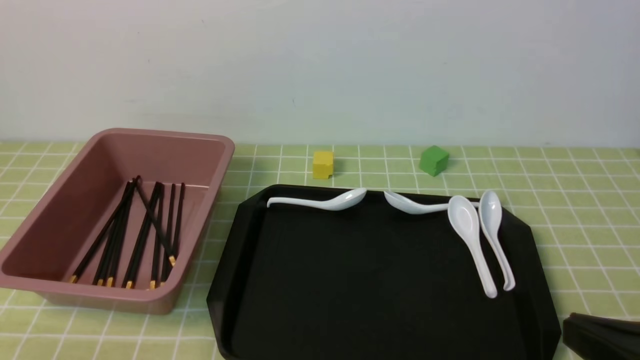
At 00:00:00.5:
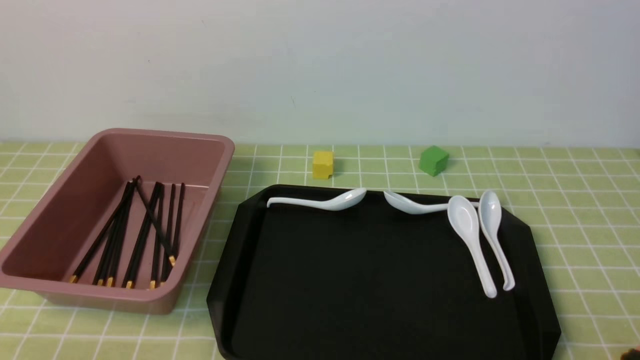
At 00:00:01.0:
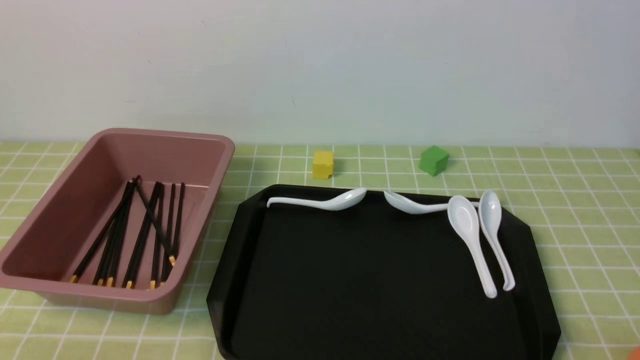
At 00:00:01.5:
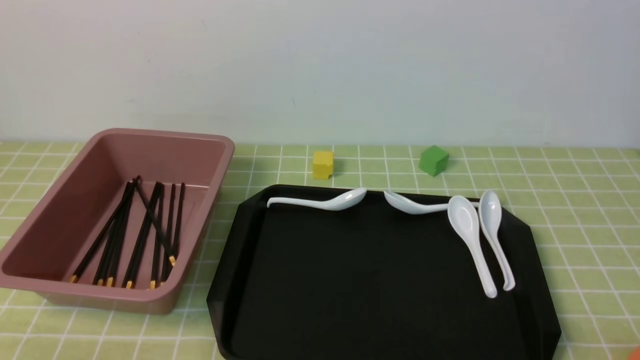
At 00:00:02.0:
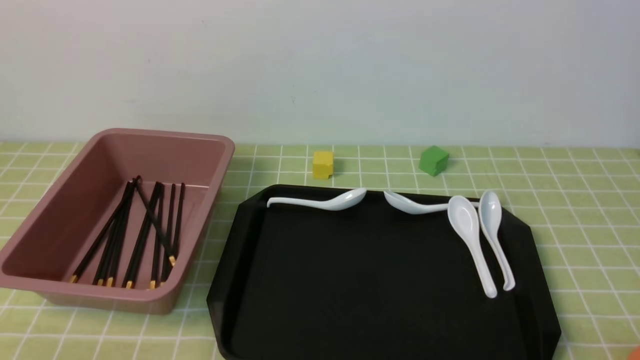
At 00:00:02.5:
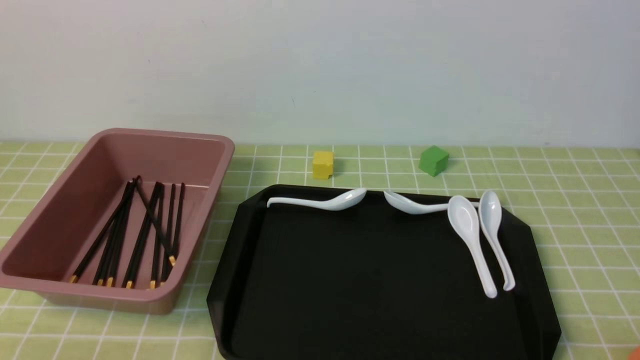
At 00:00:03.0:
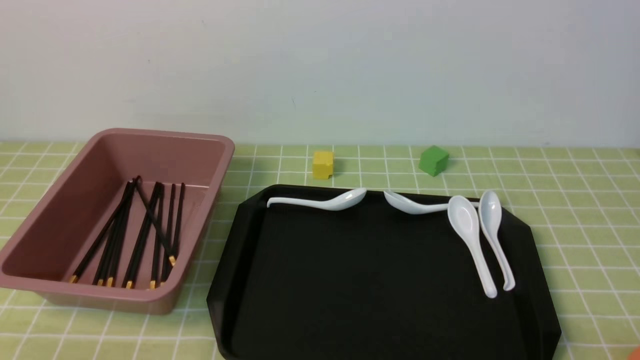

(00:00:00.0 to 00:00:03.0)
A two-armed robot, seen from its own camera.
00:00:00.0 - 00:00:01.5: The right gripper travels downward and to the right by approximately 10 cm.
00:00:01.5 - 00:00:03.0: Neither gripper changes place.
